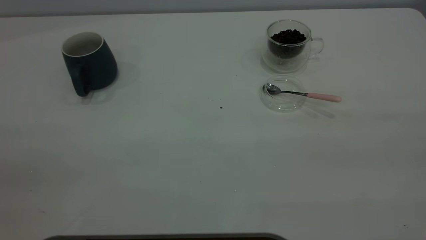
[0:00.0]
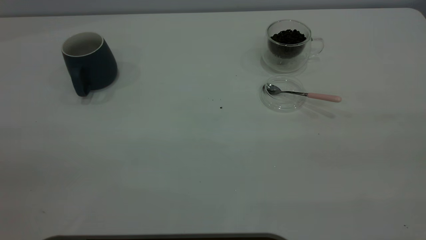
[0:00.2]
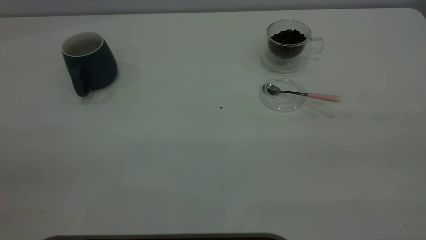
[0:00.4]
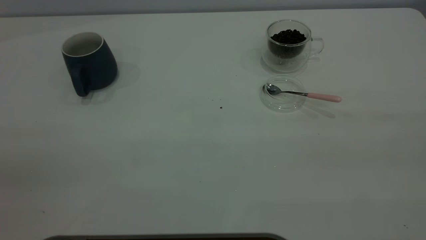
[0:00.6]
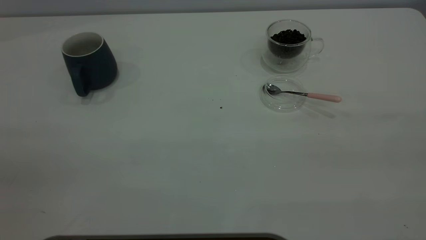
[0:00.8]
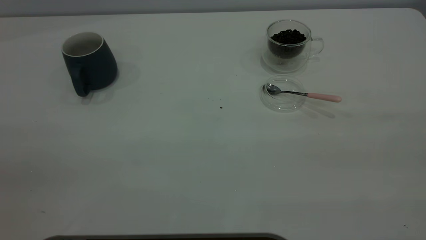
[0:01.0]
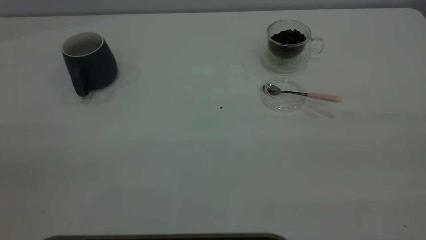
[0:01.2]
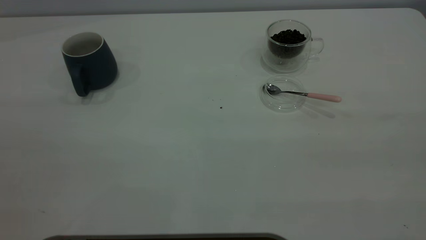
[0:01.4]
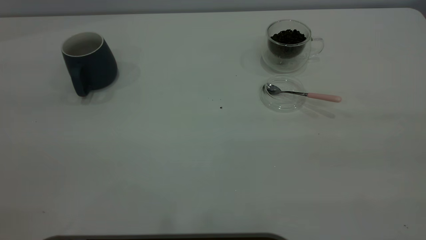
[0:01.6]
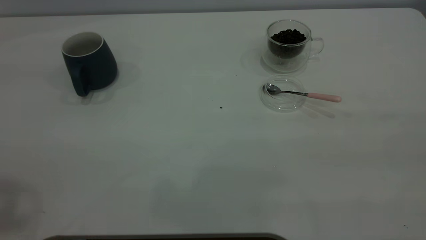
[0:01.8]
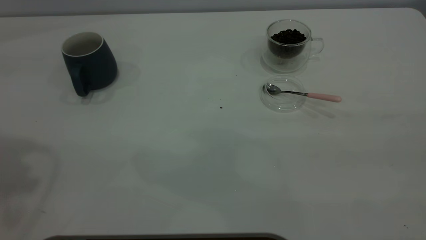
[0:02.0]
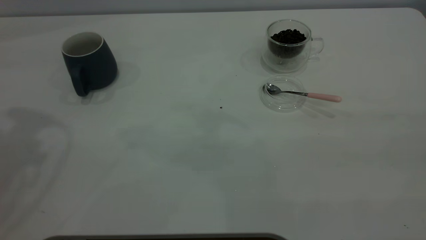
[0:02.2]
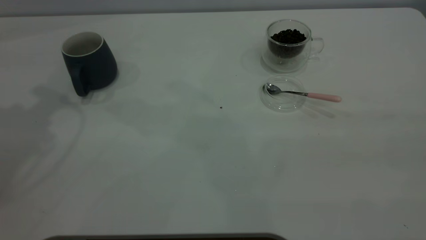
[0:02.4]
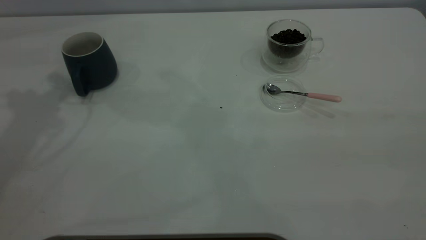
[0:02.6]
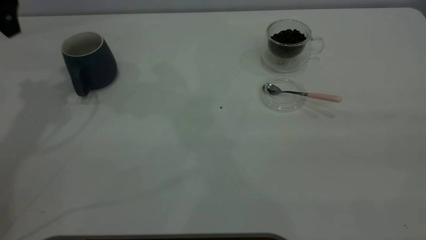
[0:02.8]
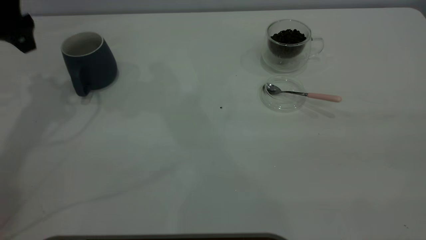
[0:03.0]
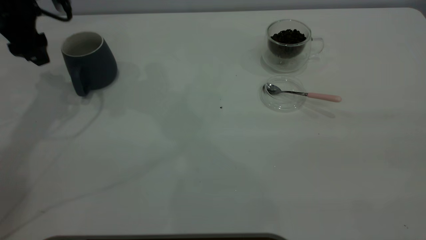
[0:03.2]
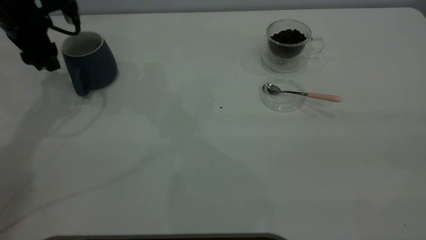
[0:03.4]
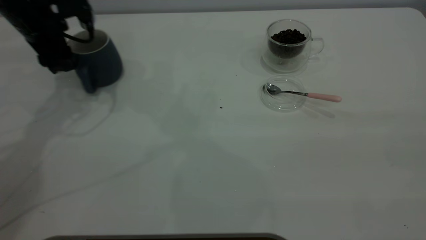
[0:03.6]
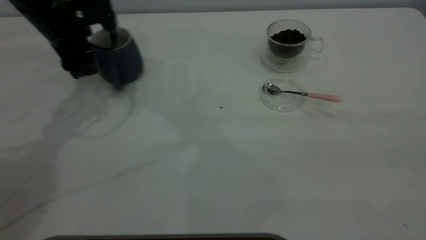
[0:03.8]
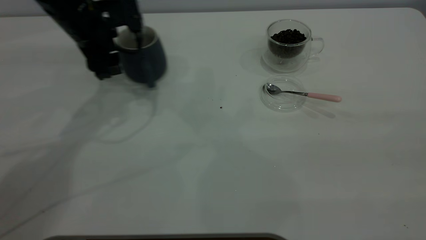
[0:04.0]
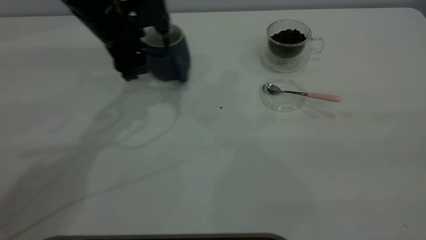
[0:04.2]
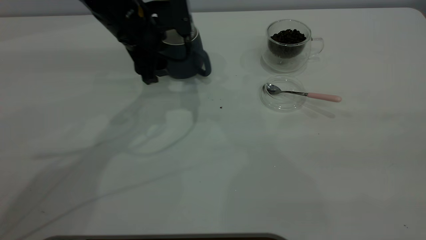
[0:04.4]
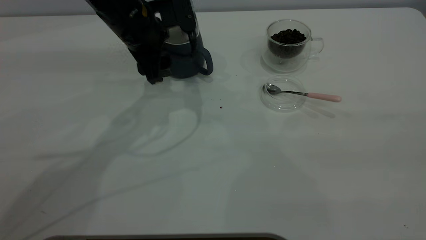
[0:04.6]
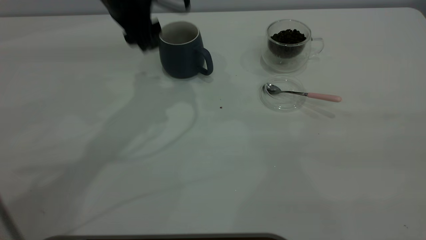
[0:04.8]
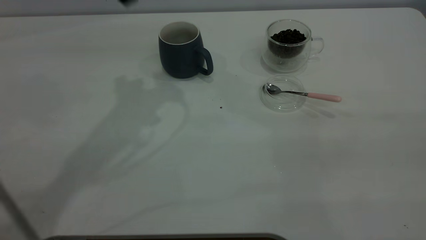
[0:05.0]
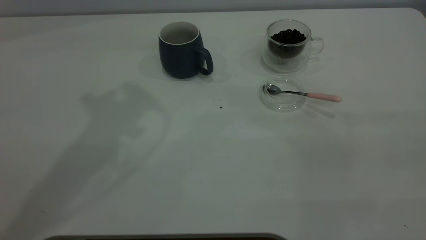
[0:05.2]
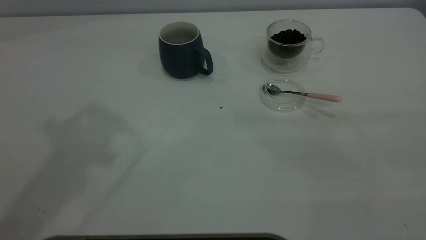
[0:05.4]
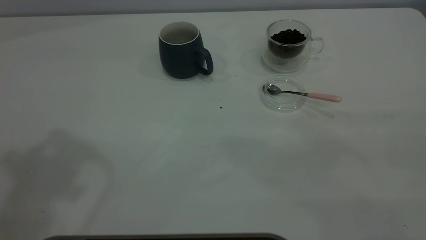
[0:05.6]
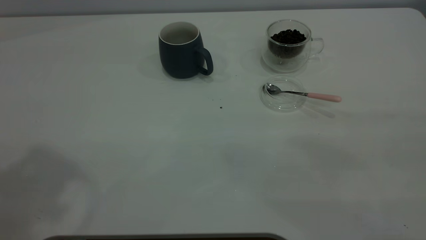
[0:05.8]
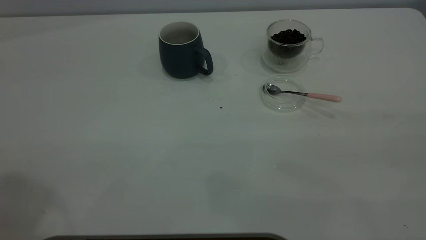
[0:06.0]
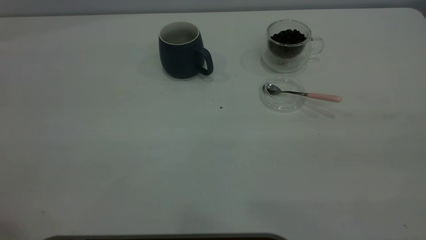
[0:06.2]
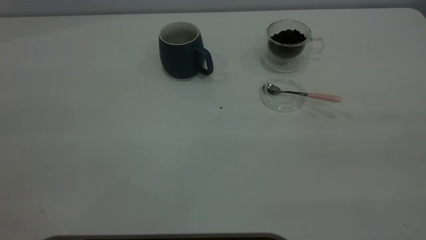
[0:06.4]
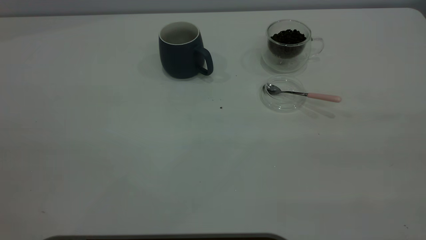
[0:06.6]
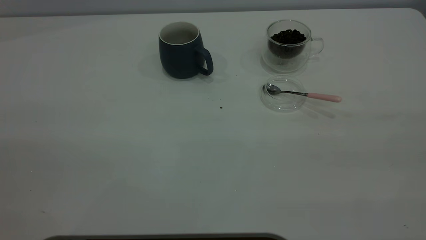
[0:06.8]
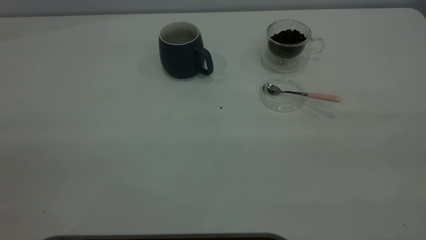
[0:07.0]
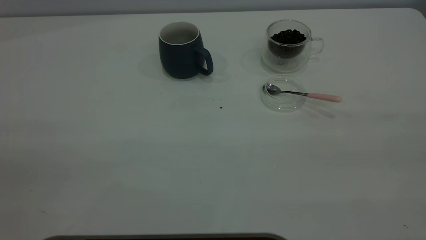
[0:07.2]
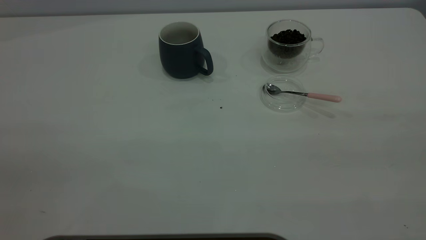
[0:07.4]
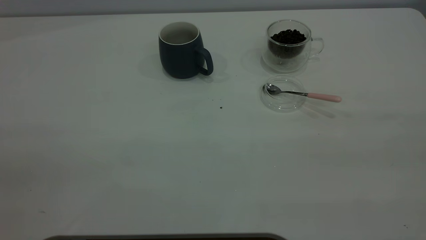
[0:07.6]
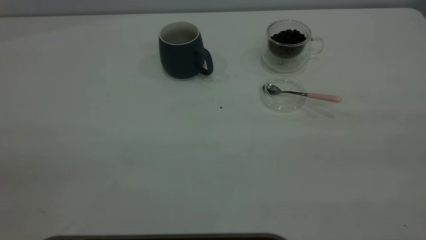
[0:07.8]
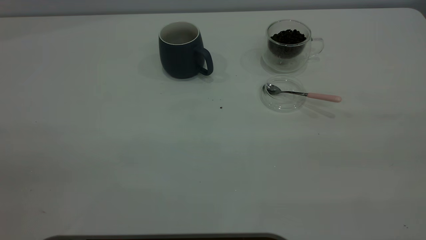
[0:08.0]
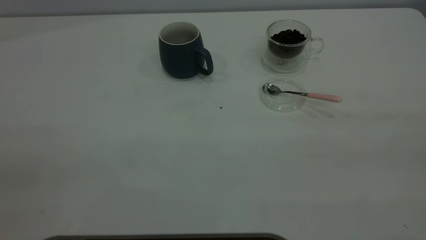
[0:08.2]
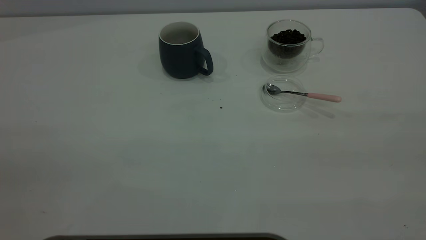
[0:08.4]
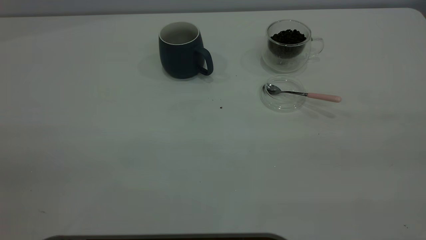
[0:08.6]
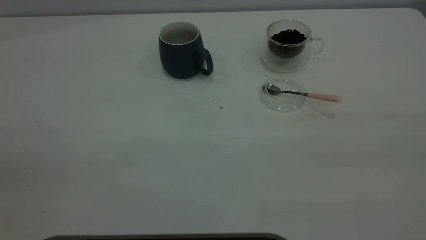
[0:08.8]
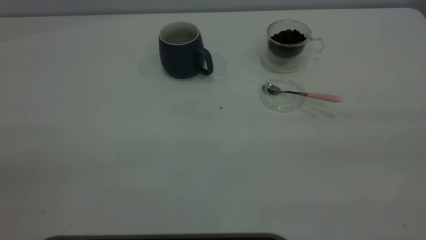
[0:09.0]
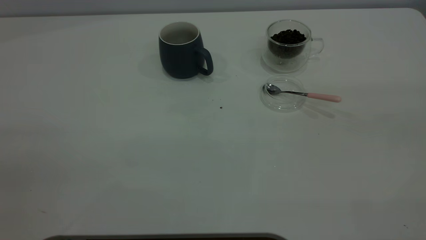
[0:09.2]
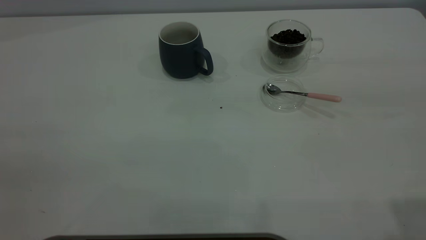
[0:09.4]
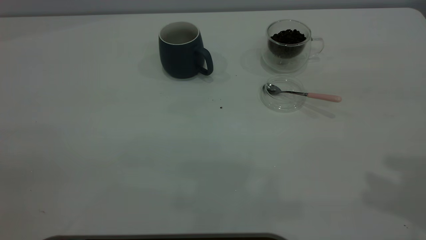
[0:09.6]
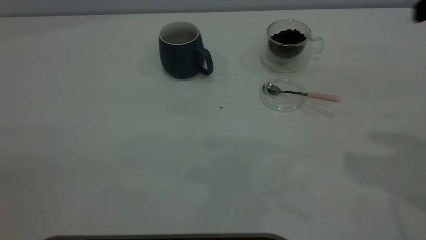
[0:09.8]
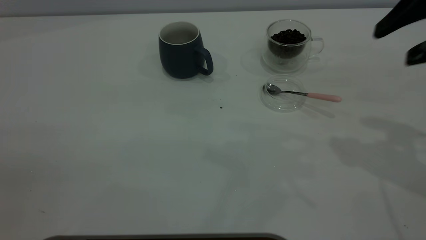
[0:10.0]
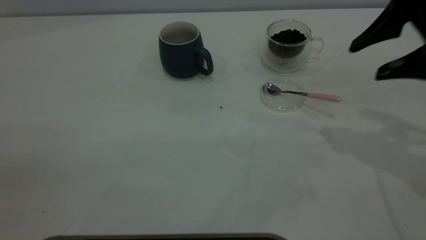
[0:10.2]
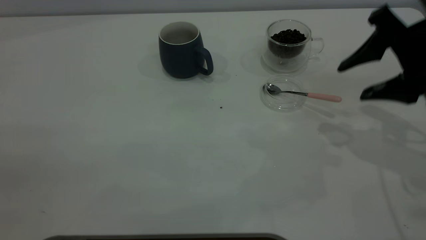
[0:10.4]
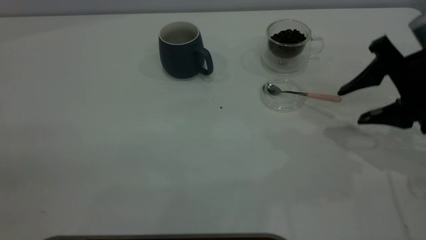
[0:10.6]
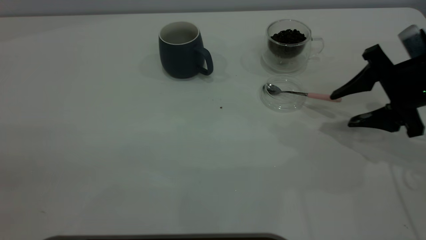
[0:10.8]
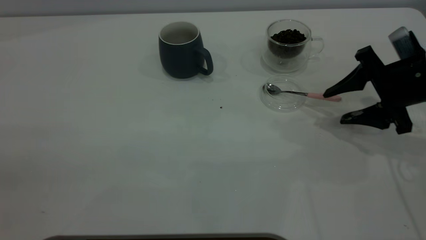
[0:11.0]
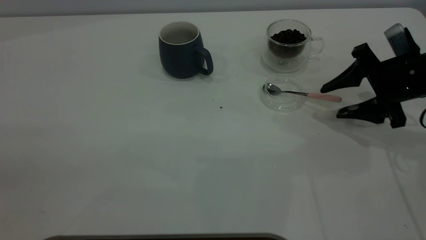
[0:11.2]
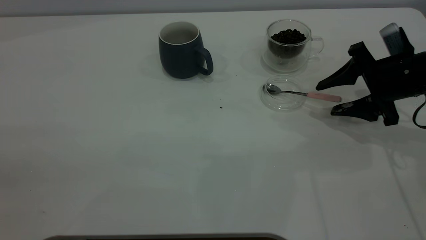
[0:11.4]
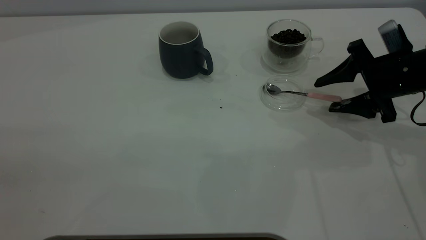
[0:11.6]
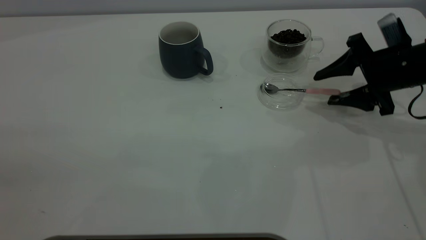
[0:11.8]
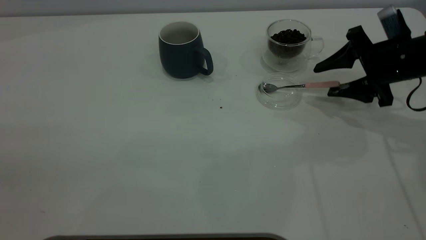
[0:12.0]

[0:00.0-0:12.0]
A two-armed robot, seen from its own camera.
Task of the whole recording: the left gripper place the grey cup in the center of the table, the right gripper take the pink spoon from the cup lid and scoop out the coffee beans from the coffee cup and put them into the grey cup, the right gripper put the spoon back into the cup lid.
Step, 0:00.0 to 0:04.8: Move the cup to the center of view.
0:01.6 to 0:03.0: The left gripper travels forward and downward by approximately 40 cm.
0:03.0 to 0:04.4: The left gripper is displaced to the right by roughly 20 cm.
0:04.4 to 0:06.0: The left gripper goes about 40 cm upward and backward.
0:09.0 to 0:10.4: The right gripper moves forward and downward, about 35 cm.
0:10.4 to 0:12.0: The right gripper travels forward and downward by roughly 10 cm.

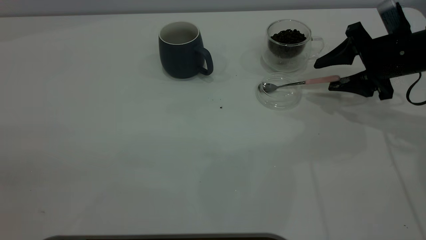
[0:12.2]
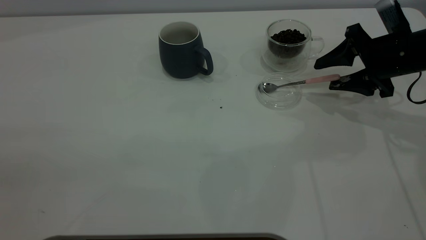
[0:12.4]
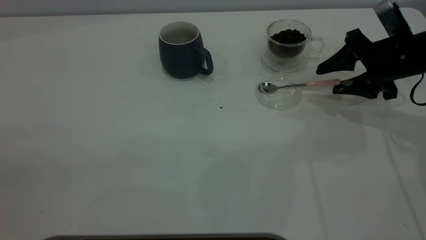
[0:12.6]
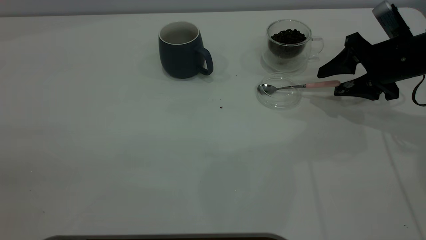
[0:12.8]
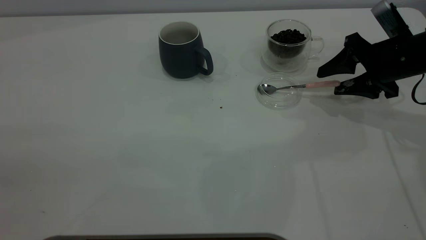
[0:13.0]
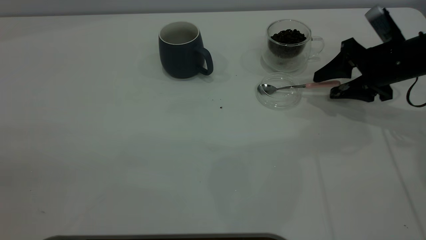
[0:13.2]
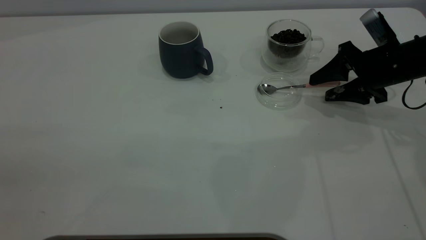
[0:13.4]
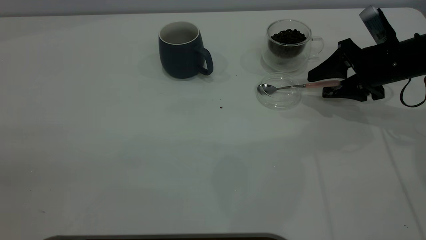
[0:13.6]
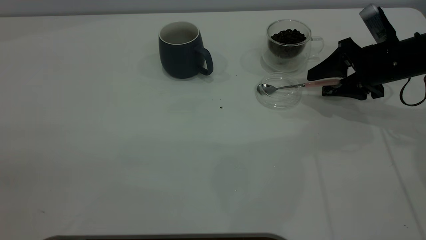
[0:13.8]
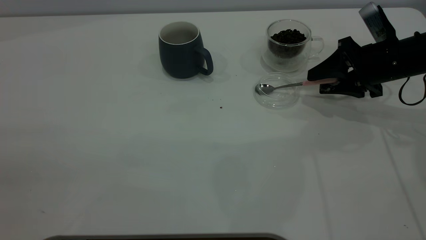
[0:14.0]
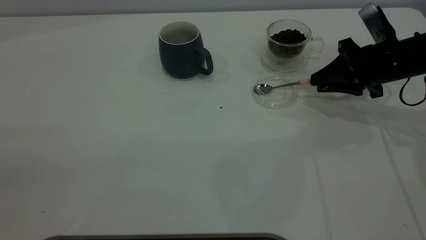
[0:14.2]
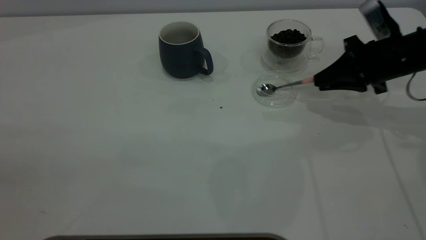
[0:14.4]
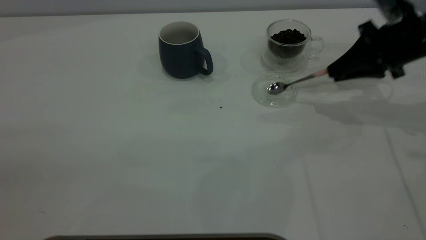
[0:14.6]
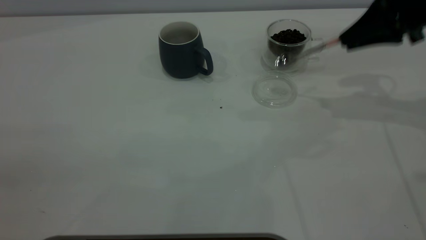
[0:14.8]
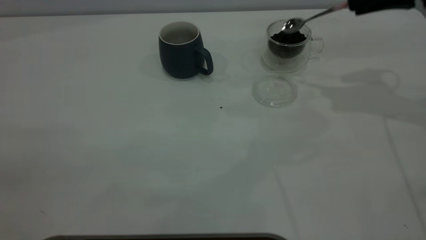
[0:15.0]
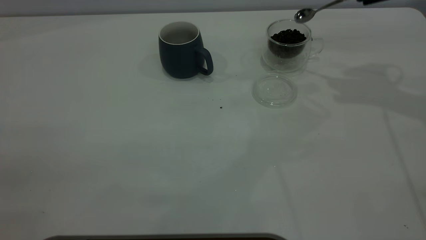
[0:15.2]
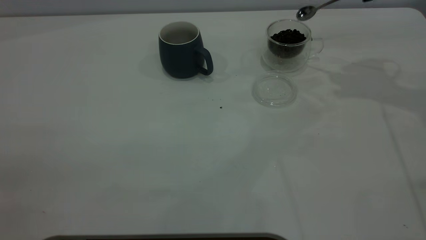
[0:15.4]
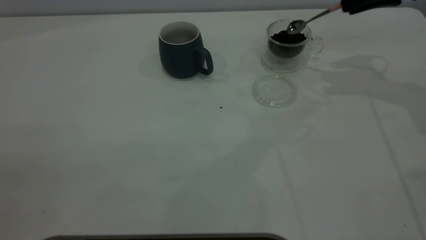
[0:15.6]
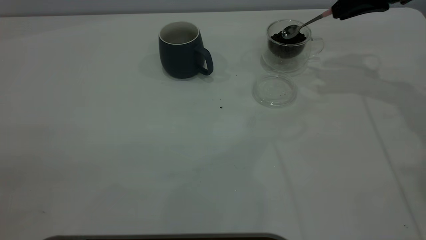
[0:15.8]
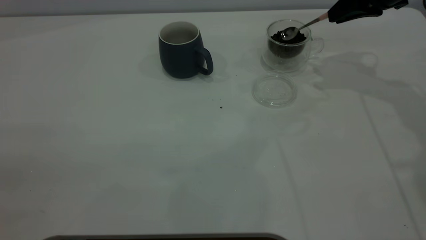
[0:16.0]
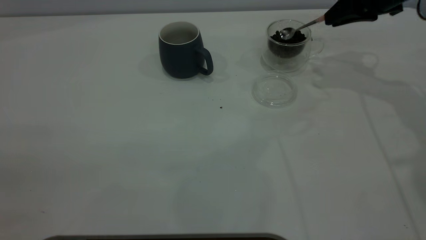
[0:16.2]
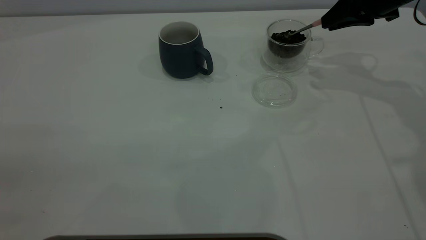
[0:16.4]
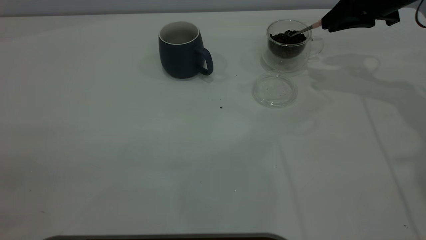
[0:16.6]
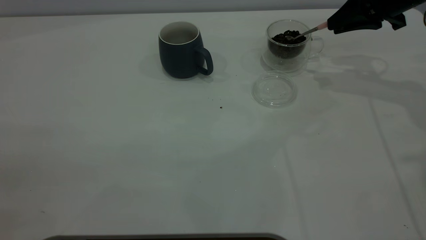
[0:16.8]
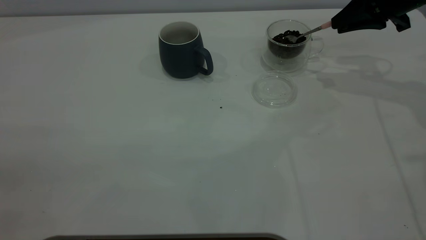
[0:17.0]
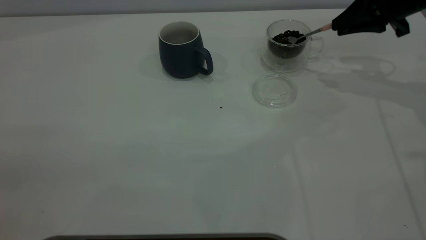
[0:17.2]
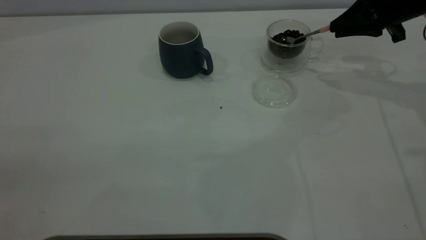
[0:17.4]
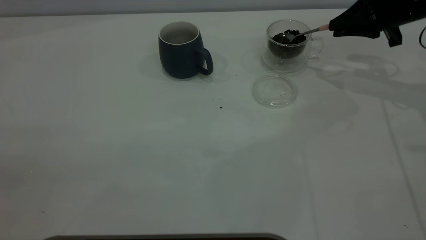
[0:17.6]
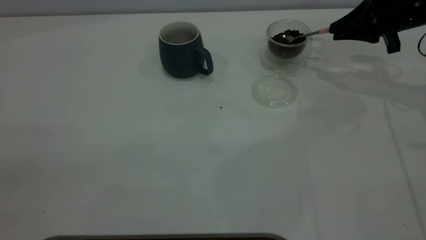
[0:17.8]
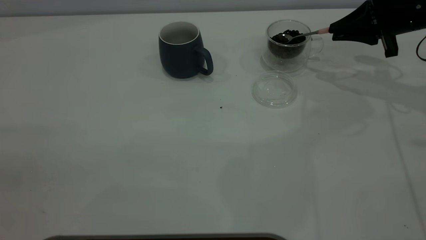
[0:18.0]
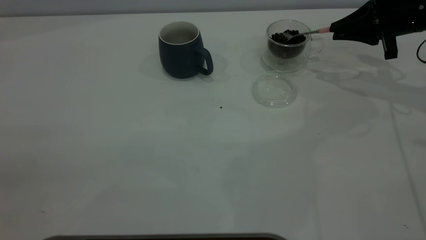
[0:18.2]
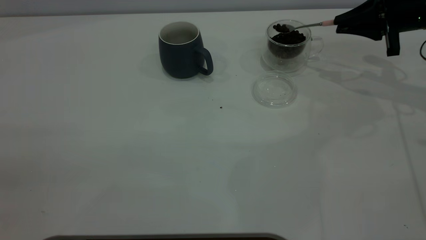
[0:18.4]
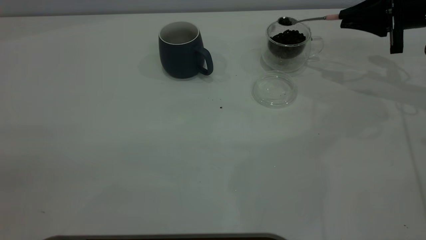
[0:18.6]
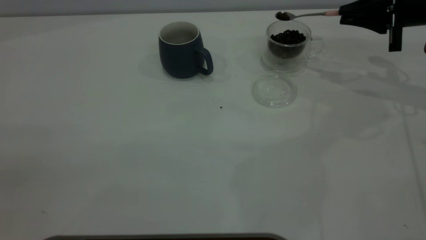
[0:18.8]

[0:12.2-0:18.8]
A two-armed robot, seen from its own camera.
Task of the whole recording: the left gripper place the grey cup in the center of the table, the right gripper take the pink spoon from the cup lid and scoop out the coffee beans from the coffee cup and put them into the grey cup, the right gripper put the spoon back into the cup lid.
Step, 0:12.2 to 0:14.6: Pick up the spoon.
0:12.2 to 0:13.8: The grippers make only small movements.
0:13.8 to 0:15.4: The right gripper is displaced upward by some 15 cm, and closes.
0:15.4 to 0:17.2: The right gripper heads downward, covering about 5 cm.
